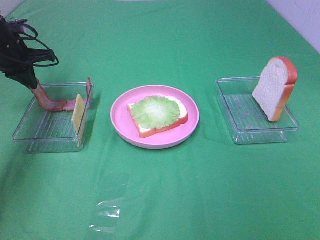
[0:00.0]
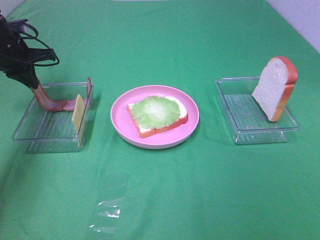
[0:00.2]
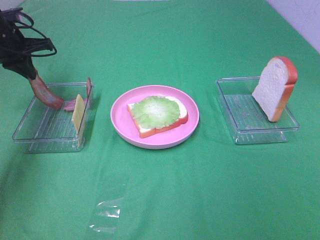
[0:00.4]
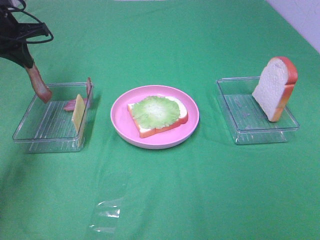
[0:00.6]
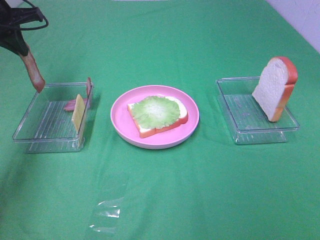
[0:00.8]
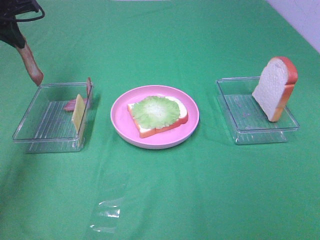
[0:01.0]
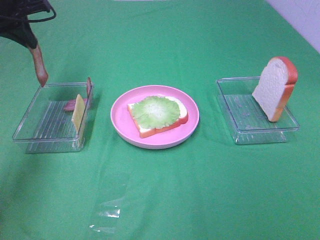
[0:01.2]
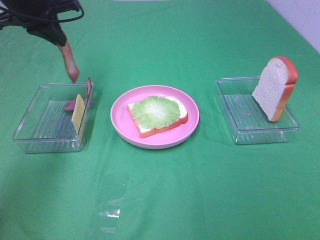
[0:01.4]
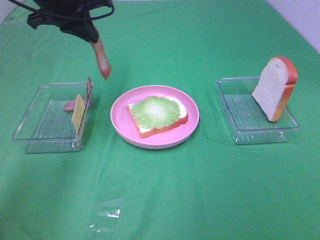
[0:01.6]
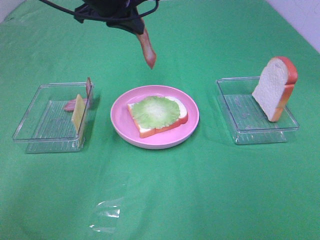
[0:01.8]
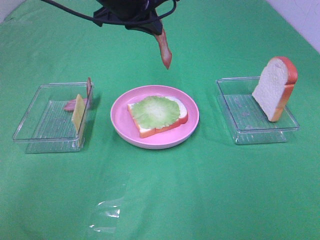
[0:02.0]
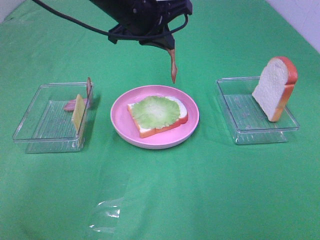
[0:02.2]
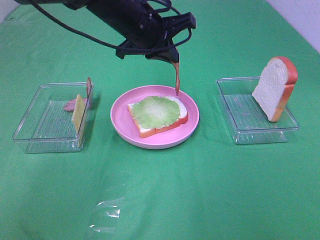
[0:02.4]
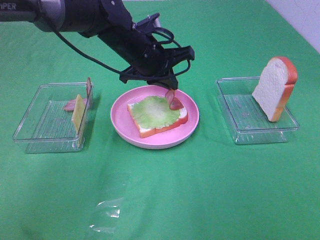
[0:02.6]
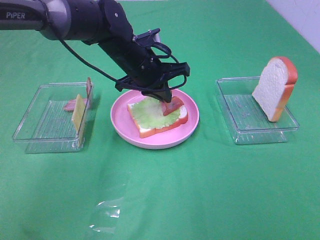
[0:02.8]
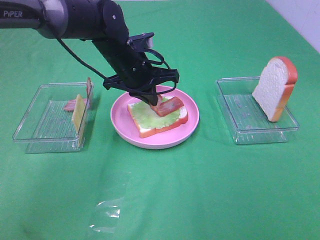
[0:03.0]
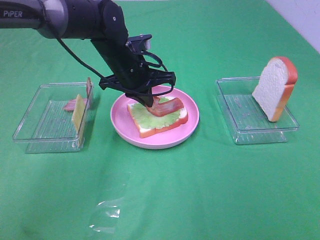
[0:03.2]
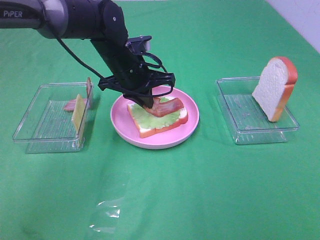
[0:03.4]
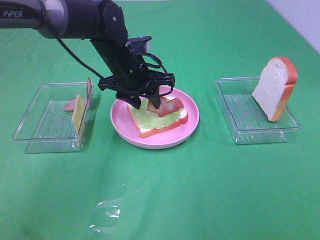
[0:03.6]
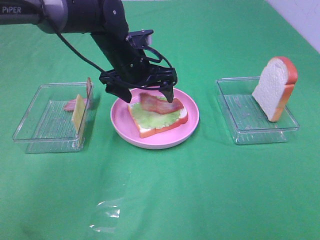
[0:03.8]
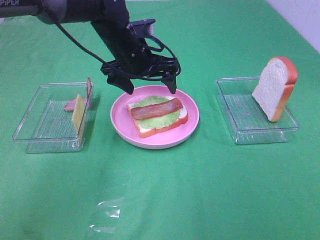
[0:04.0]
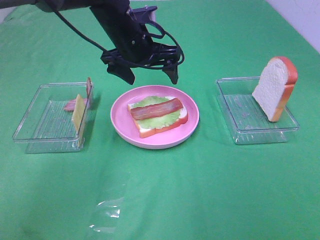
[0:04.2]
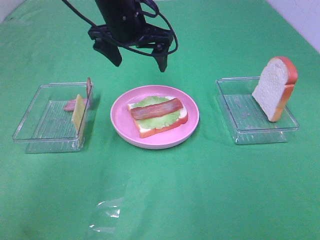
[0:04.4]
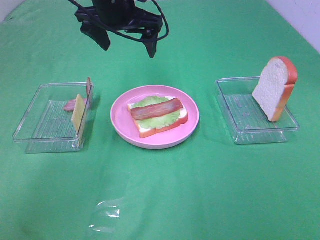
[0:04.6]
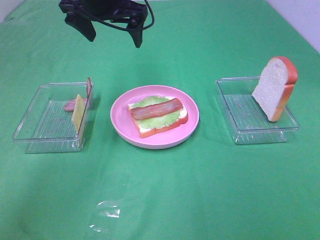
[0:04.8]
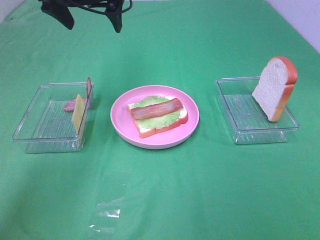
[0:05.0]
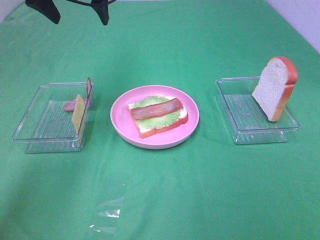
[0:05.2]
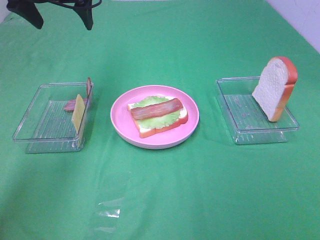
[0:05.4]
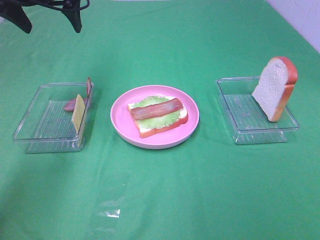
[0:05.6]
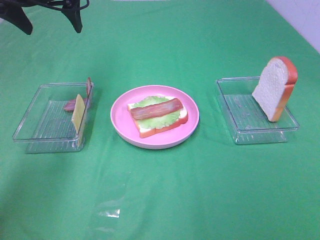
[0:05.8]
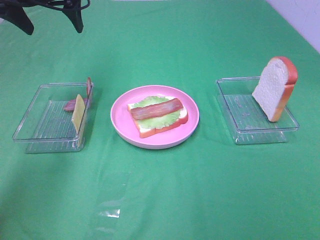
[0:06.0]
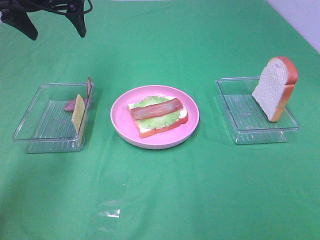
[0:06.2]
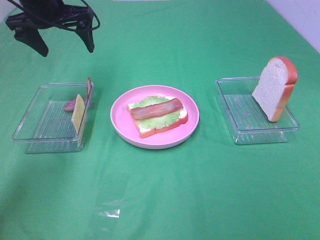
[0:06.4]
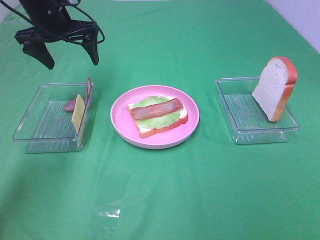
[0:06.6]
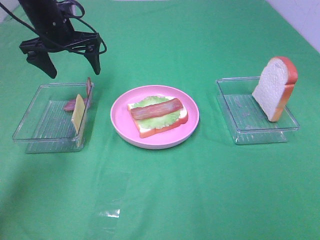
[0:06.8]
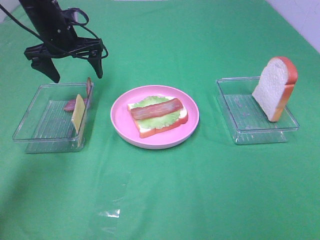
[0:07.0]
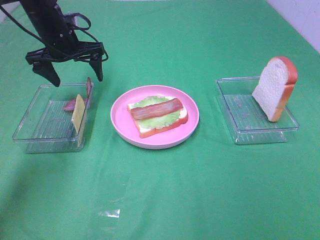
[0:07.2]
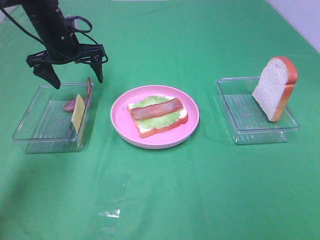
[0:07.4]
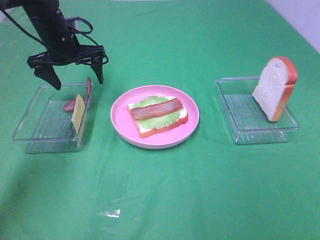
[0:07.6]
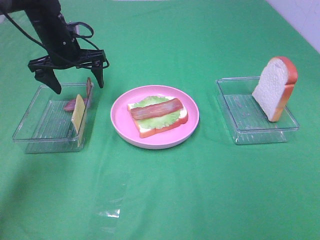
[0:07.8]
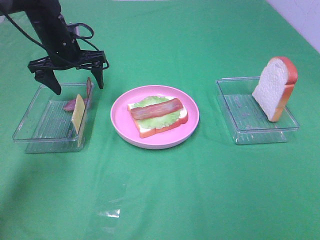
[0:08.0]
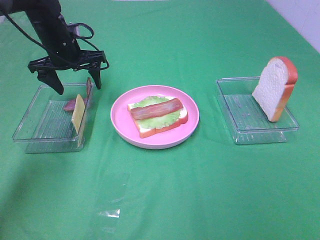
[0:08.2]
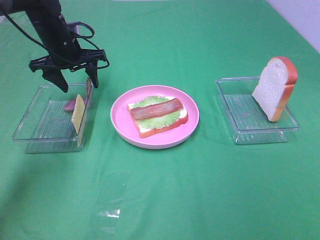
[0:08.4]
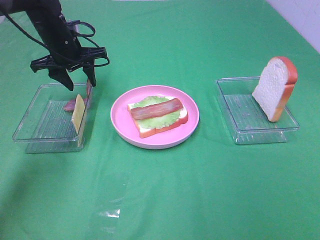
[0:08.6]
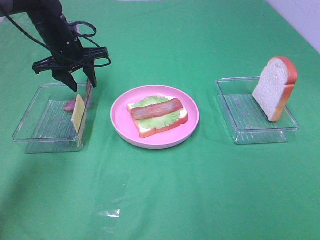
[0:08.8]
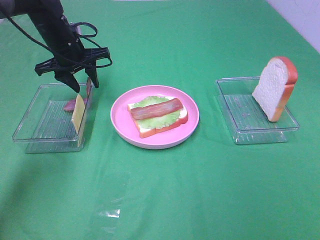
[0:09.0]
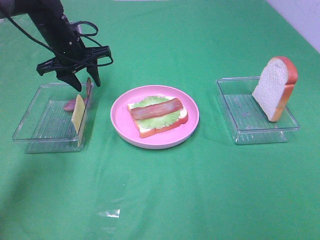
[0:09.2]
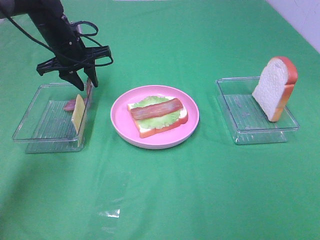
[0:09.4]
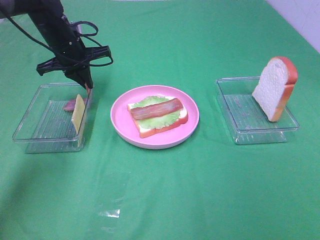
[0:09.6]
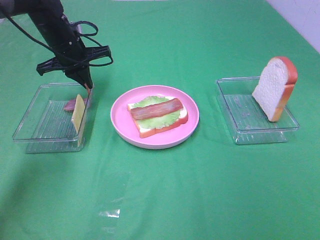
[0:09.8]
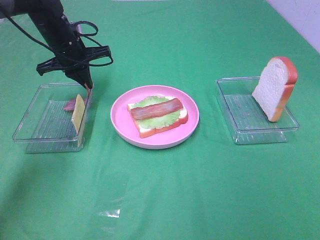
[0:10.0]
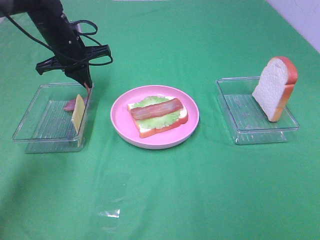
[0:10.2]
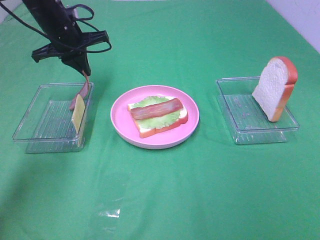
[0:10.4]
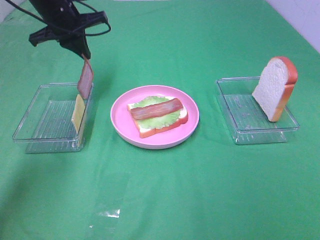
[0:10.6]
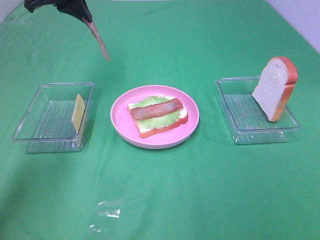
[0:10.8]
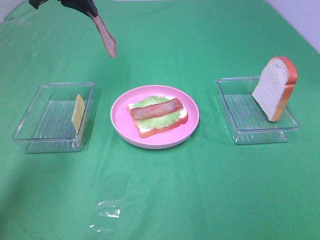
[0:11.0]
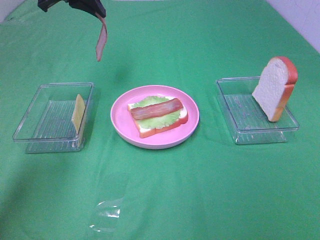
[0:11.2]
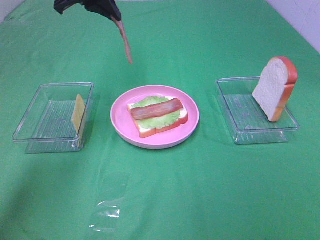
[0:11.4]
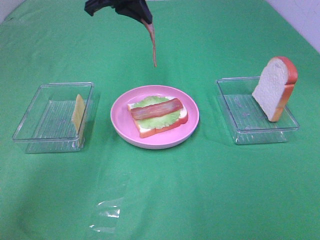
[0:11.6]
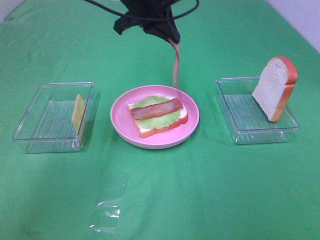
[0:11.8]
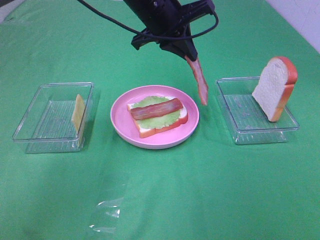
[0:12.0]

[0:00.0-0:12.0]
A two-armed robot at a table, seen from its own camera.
Task of the whole recording: Make sandwiches.
Step, 0:00.0 to 0:03.8: Left hand:place bacon on lettuce slice.
Step, 0:04.0 to 0:09.6: Left hand:grab the bacon.
0:00.0 to 0:01.6: The left gripper is displaced to the right and upward by about 20 cm.
0:01.6 to 0:03.0: The left gripper goes about 15 cm downward and to the right.
0:03.0 to 0:04.4: The left gripper goes about 10 cm upward, and opens its fingers.
0:04.4 to 0:06.0: The left gripper is displaced to the left by approximately 15 cm.
0:06.0 to 0:07.6: The left gripper goes roughly 15 cm downward.
0:07.6 to 0:09.0: The left gripper closes.
0:09.0 to 0:10.4: The left gripper closes its fingers.
0:10.4 to 0:12.0: The left gripper goes approximately 20 cm to the right.

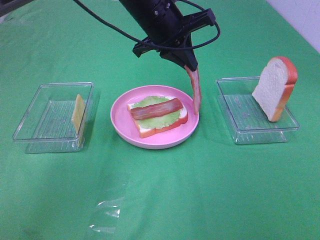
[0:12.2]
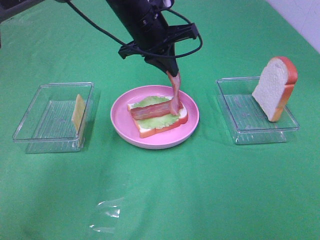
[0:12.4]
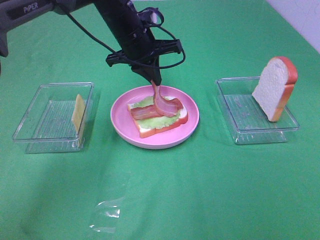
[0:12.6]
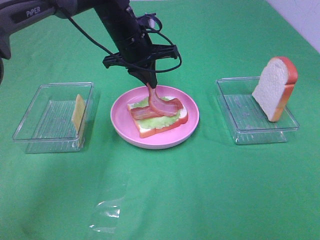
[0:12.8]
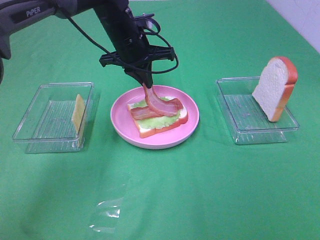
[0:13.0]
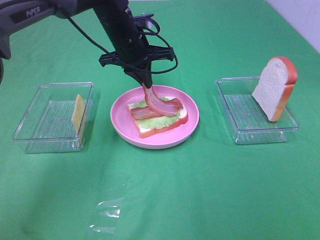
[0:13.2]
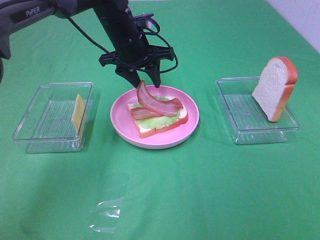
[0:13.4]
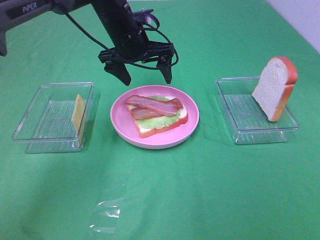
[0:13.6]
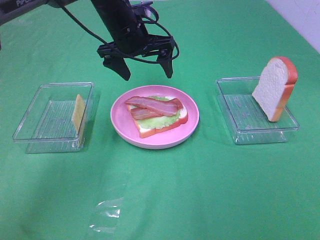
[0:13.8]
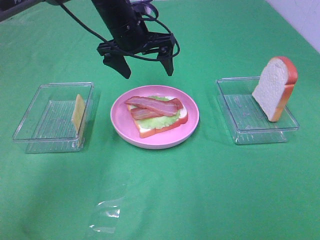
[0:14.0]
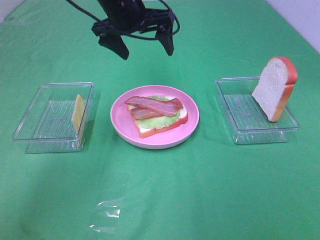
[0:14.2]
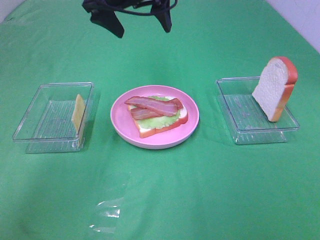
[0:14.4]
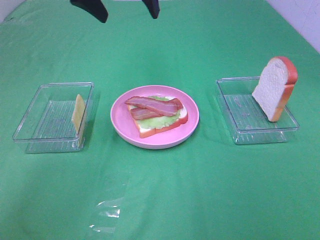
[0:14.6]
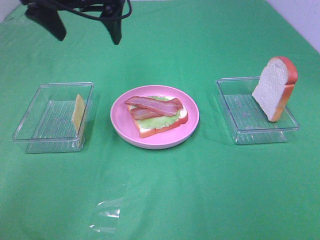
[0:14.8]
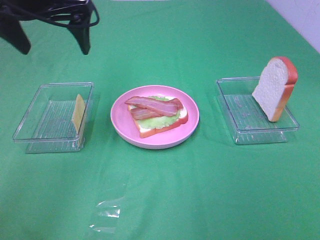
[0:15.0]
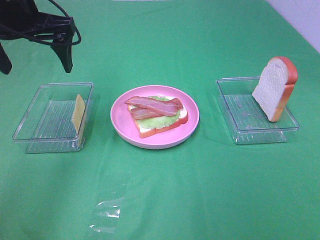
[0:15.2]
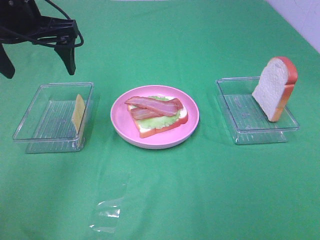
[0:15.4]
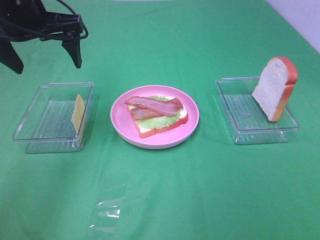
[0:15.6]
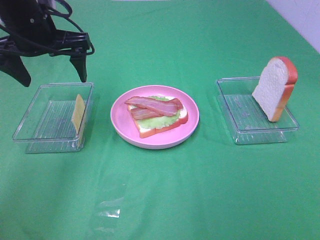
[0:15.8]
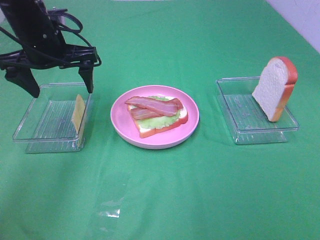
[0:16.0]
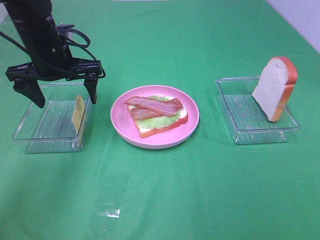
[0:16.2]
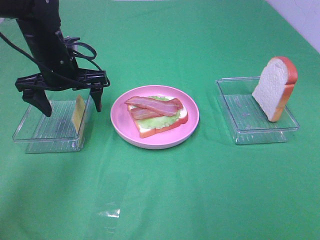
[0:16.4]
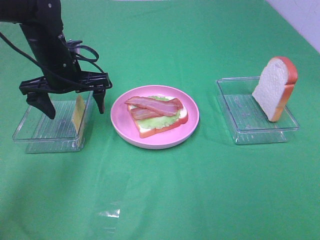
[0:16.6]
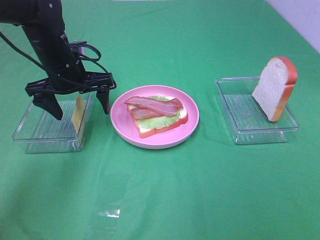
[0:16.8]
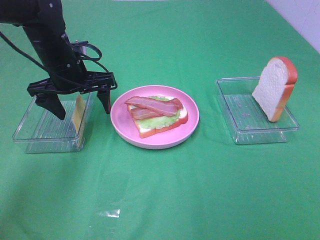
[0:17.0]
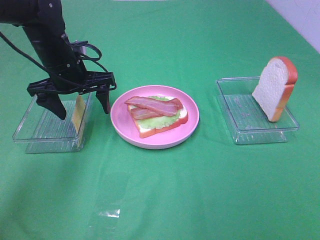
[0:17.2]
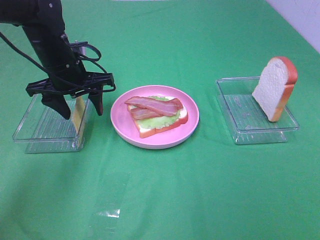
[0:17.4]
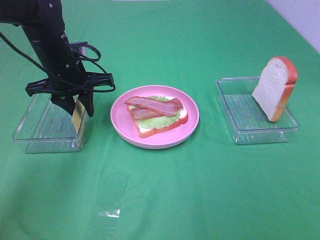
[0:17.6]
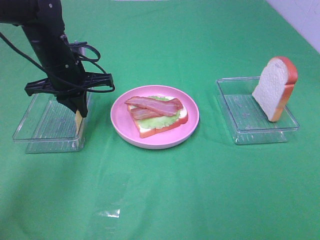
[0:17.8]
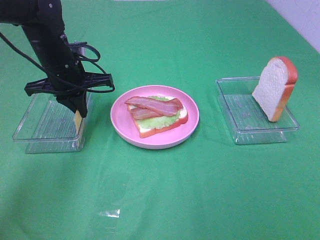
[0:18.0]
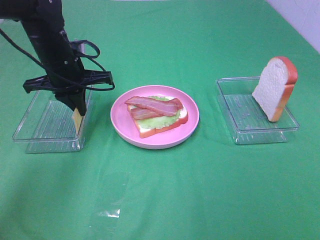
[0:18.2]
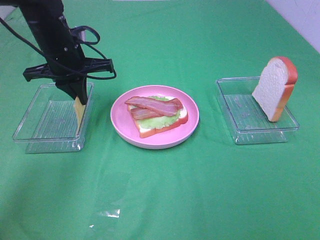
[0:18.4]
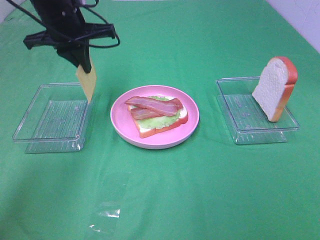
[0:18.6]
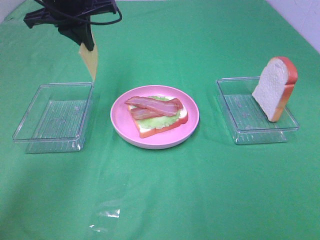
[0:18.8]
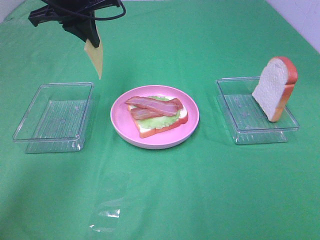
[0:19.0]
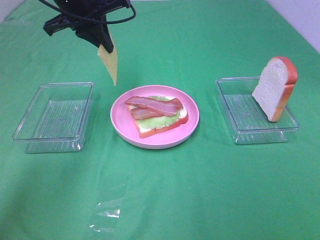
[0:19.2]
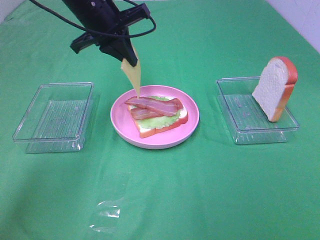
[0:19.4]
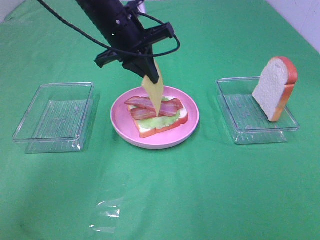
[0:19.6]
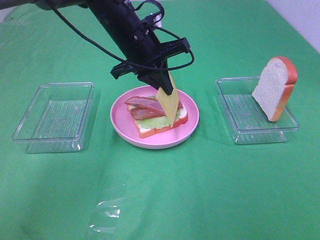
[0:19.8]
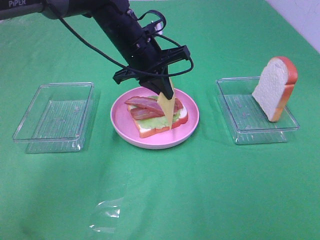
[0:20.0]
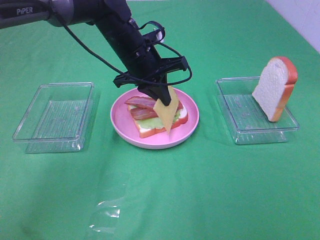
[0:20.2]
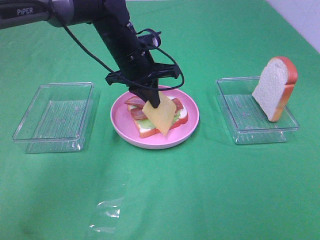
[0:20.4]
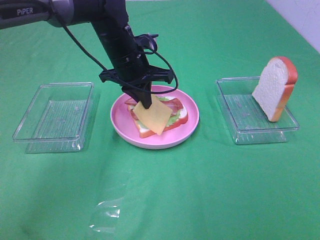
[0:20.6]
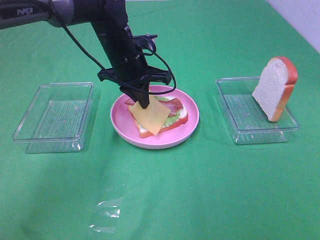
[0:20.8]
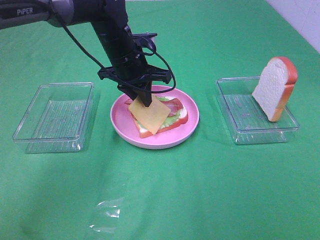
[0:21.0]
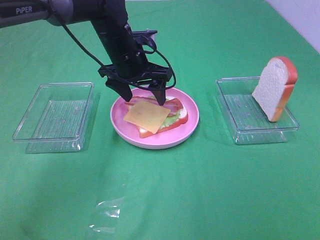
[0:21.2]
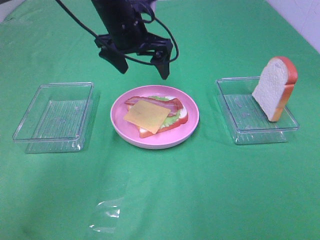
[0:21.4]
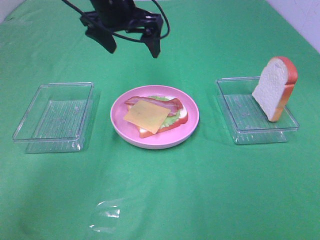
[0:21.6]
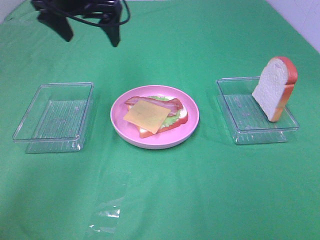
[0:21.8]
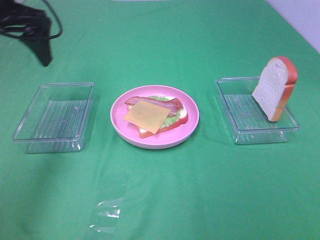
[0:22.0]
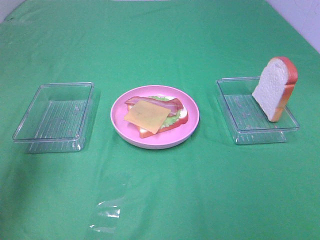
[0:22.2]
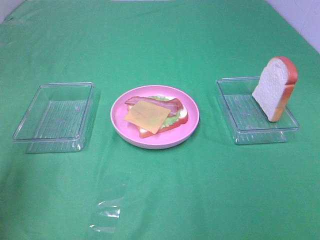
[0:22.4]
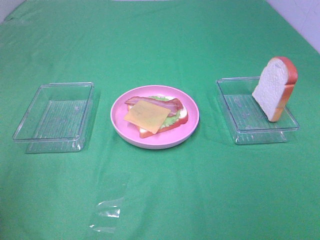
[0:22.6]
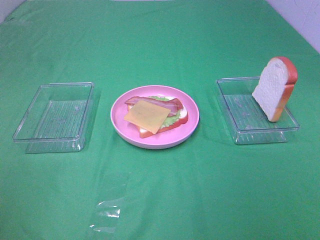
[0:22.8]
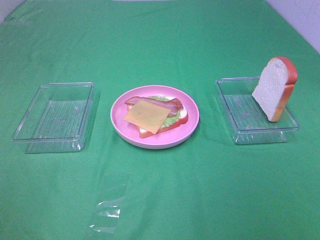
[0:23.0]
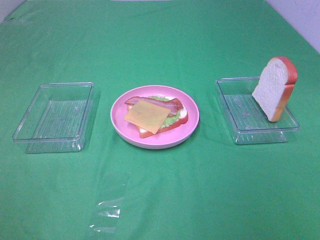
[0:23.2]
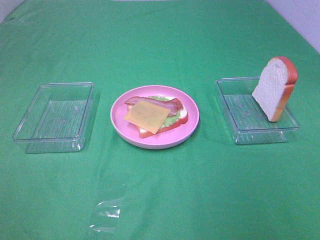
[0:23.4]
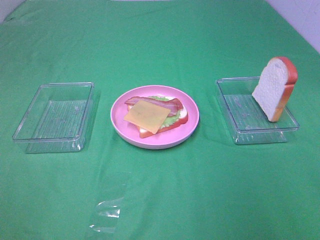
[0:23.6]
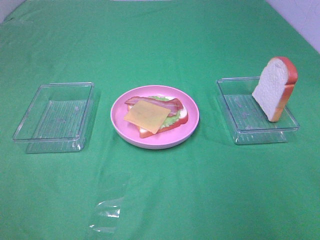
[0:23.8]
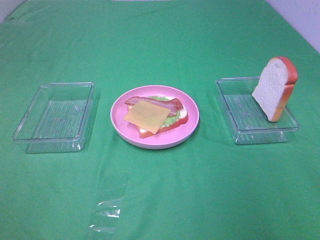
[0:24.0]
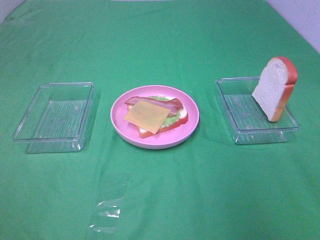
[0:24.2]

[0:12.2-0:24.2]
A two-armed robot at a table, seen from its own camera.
Task of the whole recording: Make sandwiches.
Step, 0:13.8 to 0:18.0: Left hand:grab the cheese slice.
Step, 0:18.2 to 0:21.2: Left hand:place the cheese slice on top of the bacon.
0:12.2 to 0:13.8: The left gripper changes place by roughly 5 cm, and opens.
0:13.8 to 0:15.2: The left gripper travels to the left, backward and upward by approximately 20 cm.
0:15.2 to 0:16.6: The left gripper goes some 15 cm downward.
0:16.6 to 0:18.2: The left gripper closes up.
0:18.2 to 0:19.8: The left gripper moves to the right, about 15 cm.
0:19.8 to 0:21.2: The left gripper opens.
0:21.2 to 0:22.6: The left gripper heads backward, to the left and upward, covering some 40 cm.
